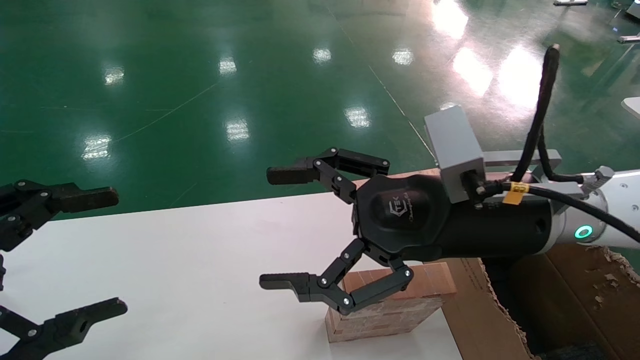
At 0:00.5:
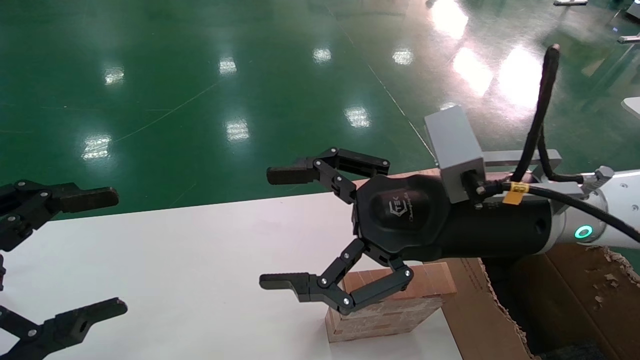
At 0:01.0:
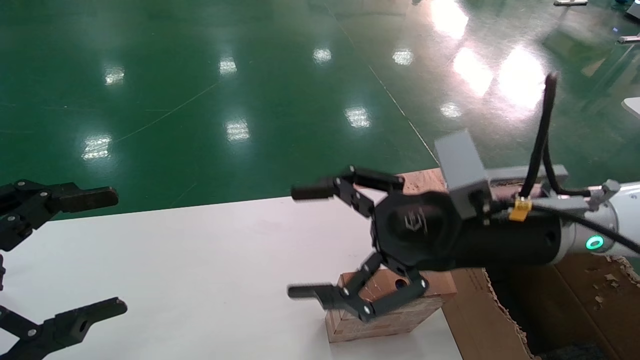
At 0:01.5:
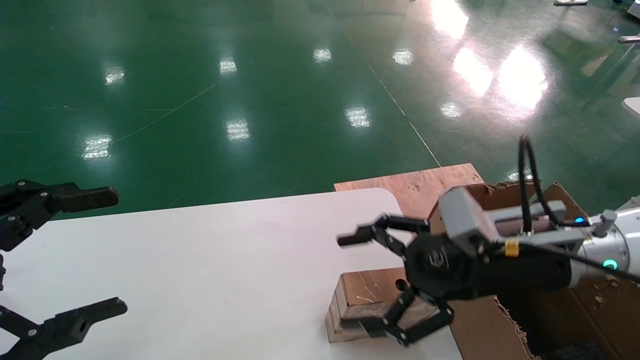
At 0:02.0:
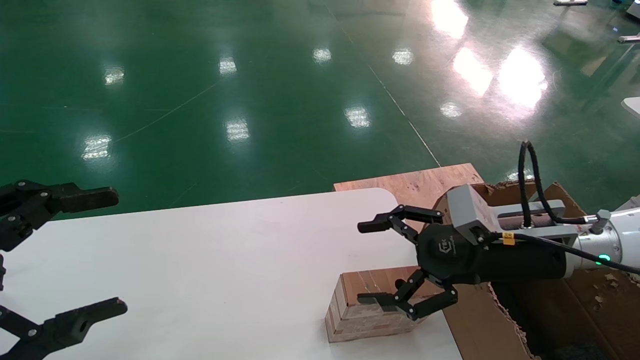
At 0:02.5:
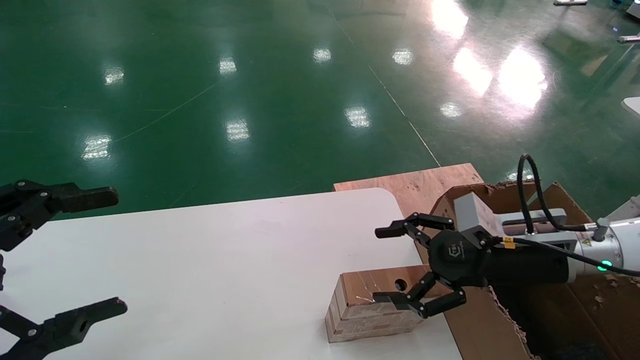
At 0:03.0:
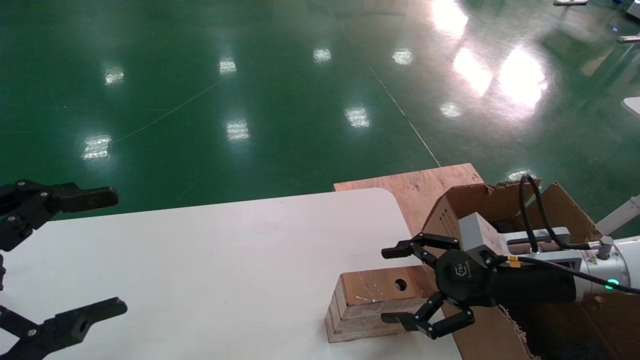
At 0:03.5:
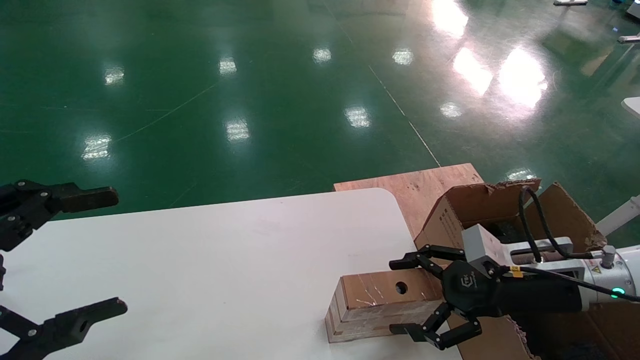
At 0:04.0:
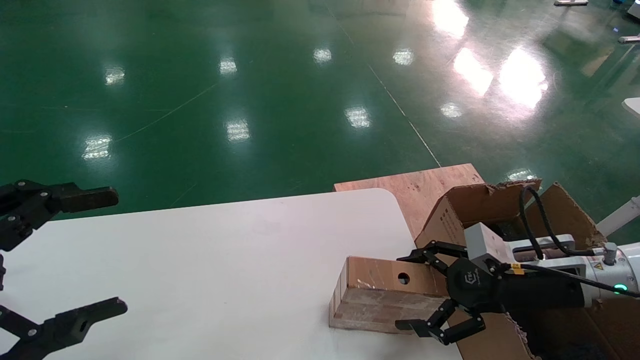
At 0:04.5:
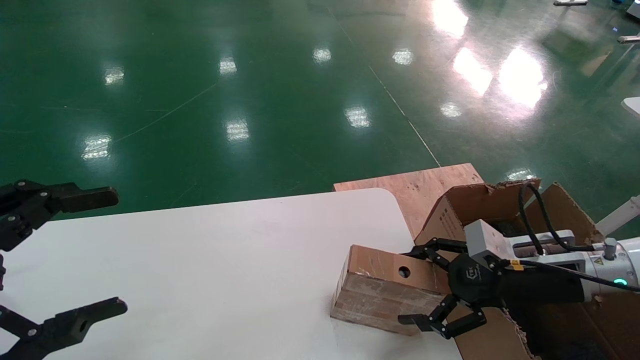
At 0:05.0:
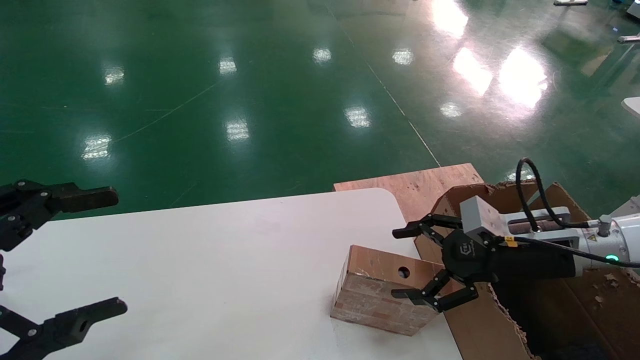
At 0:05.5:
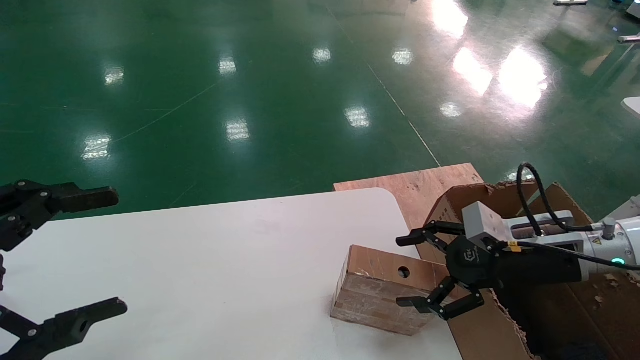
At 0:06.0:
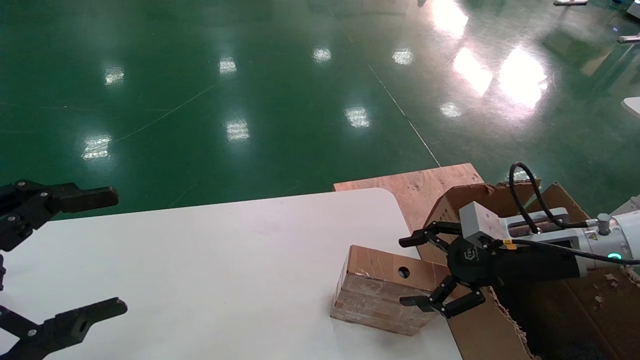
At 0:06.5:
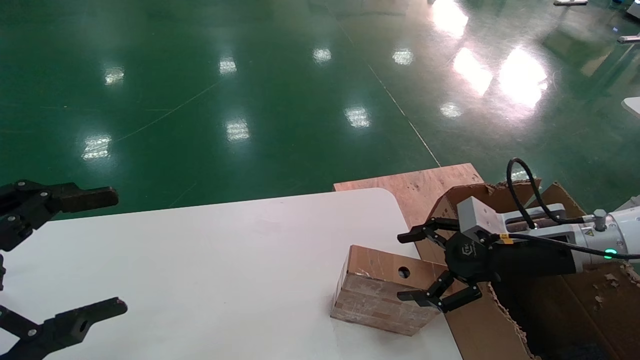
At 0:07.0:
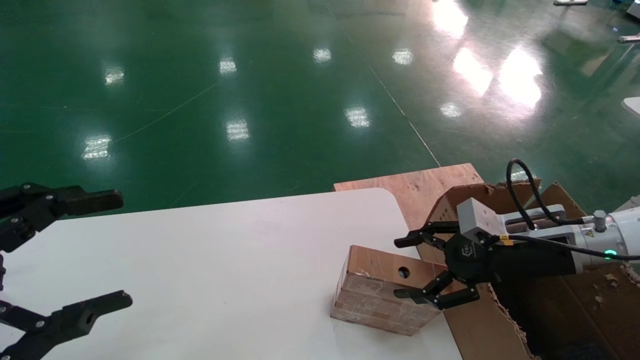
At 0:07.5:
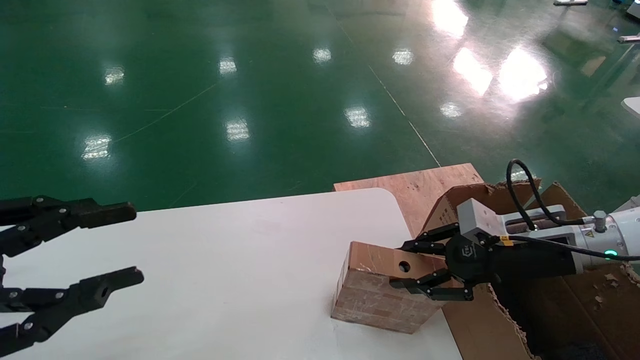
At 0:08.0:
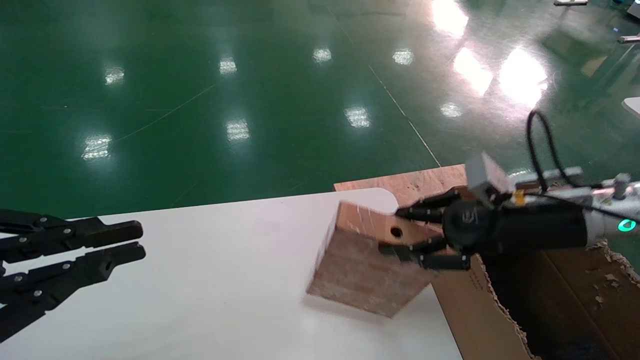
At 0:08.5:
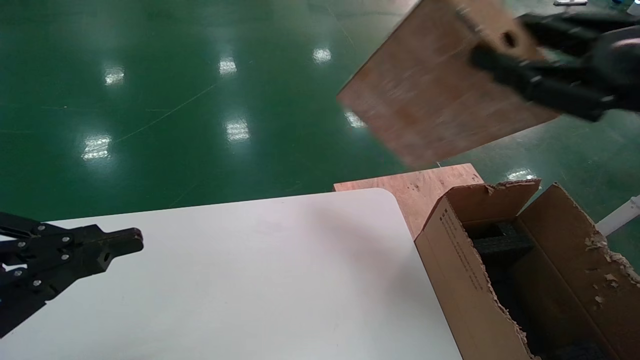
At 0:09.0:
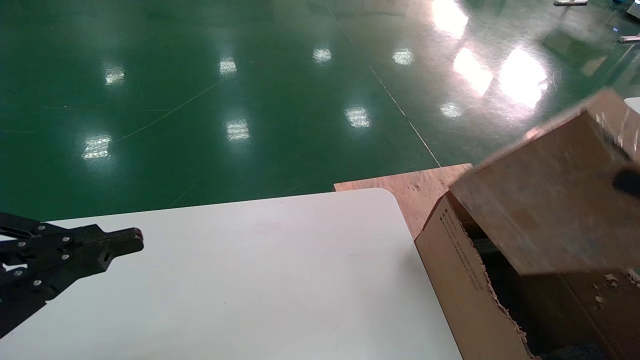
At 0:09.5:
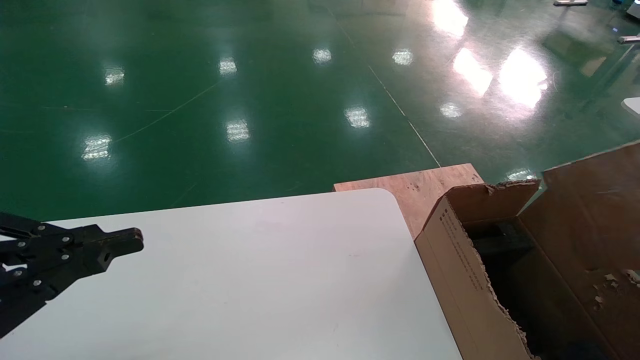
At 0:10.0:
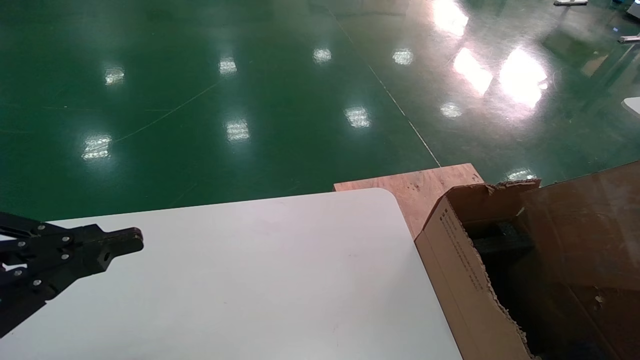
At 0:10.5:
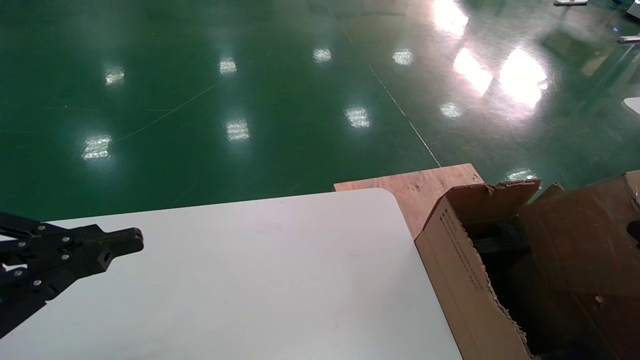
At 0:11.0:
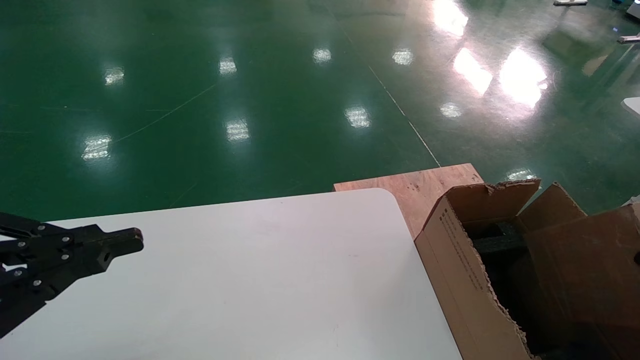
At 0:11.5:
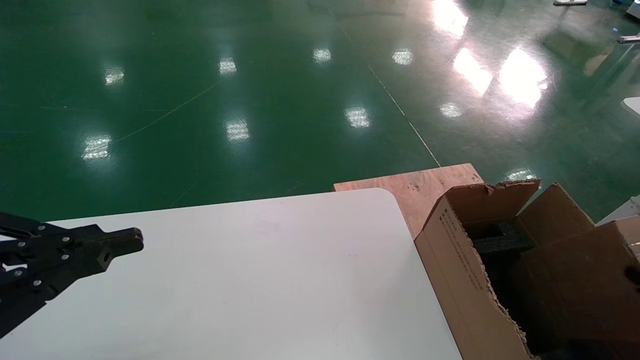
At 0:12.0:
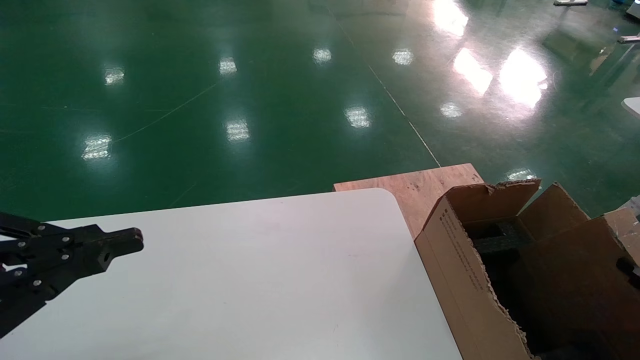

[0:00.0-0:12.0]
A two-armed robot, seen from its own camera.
Task of the whole recording: put the box on the table into the big box.
Step, 0:01.5 to 0:07.5: Pick up the mouse and the power cord paper box.
0:00.0 to 0:02.0: The right gripper moves to the right and downward, about 15 cm.
0:02.0 to 0:04.0: The right gripper moves downward and to the right, about 10 cm.
0:04.0 to 0:06.0: There are only small adjustments of the grippers.
0:06.0 to 0:08.0: The left gripper closes up. The right gripper moves upward, some 5 cm, and closes.
0:08.0 to 0:10.0: The right gripper travels backward, to the right and downward by some 30 cm.
0:10.0 to 0:12.0: The right gripper is displaced downward and to the right by about 10 cm.

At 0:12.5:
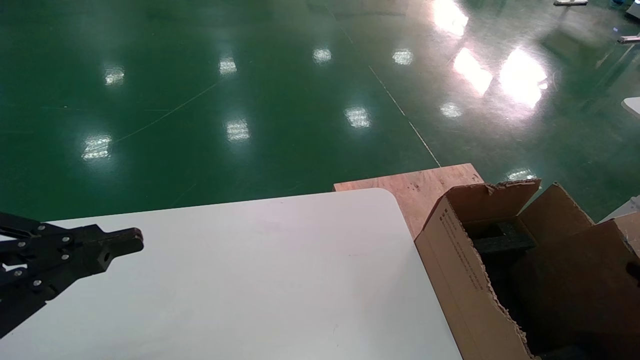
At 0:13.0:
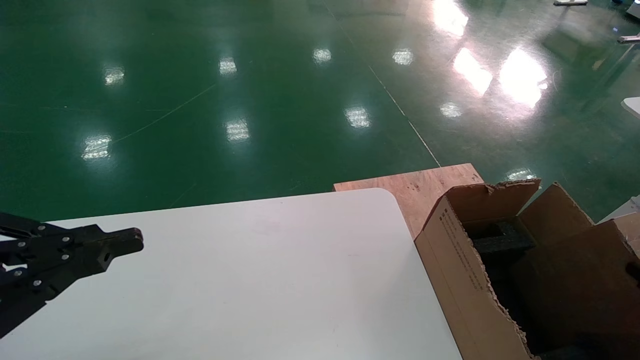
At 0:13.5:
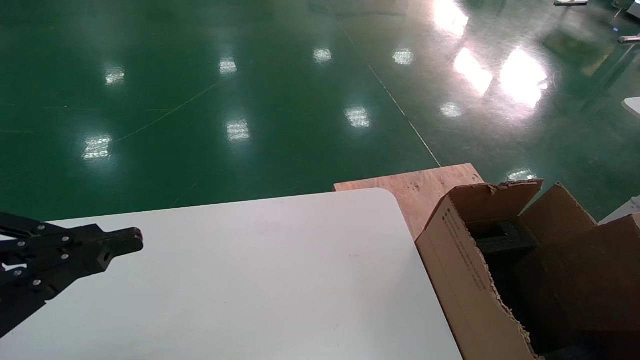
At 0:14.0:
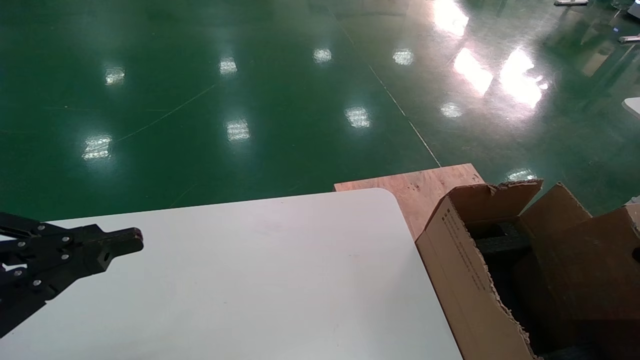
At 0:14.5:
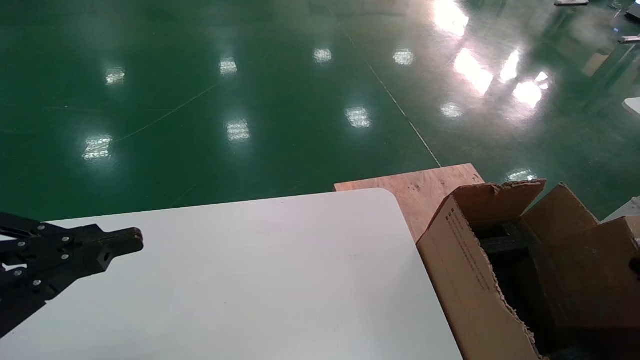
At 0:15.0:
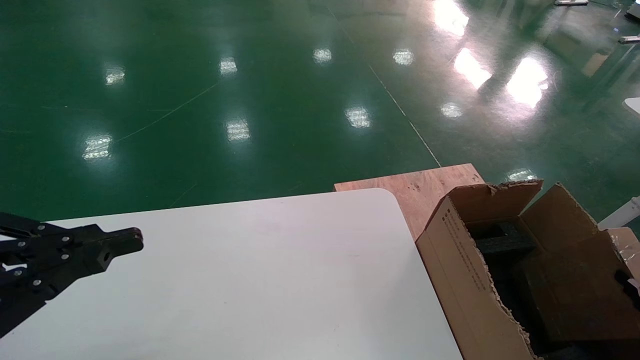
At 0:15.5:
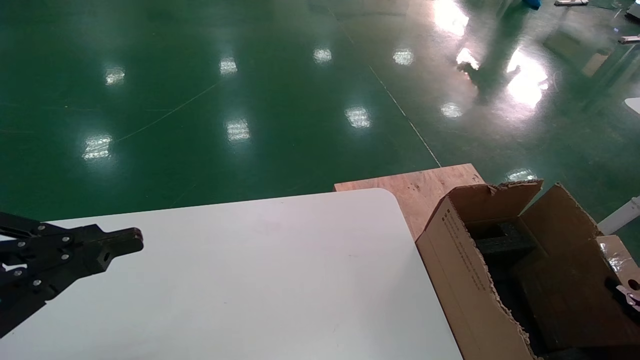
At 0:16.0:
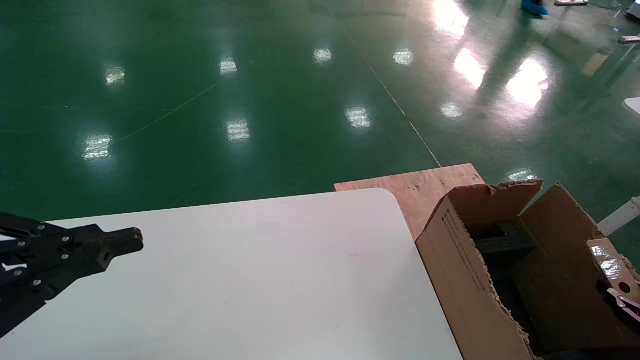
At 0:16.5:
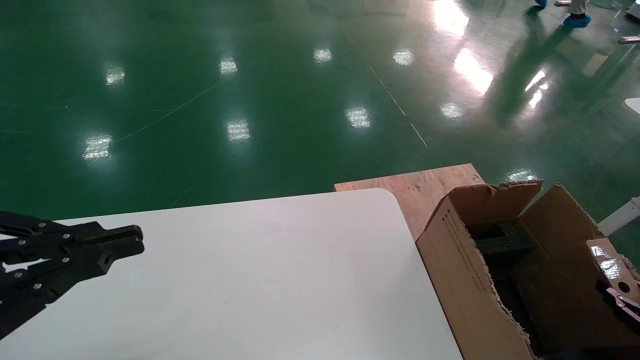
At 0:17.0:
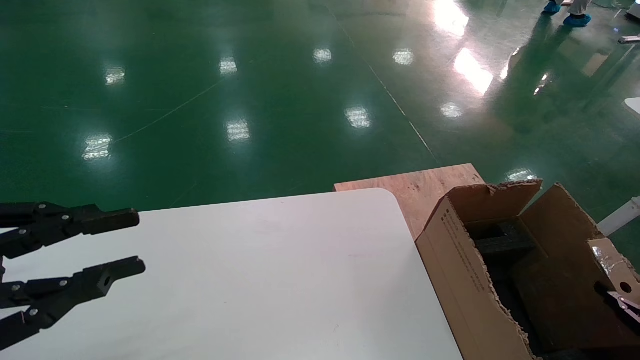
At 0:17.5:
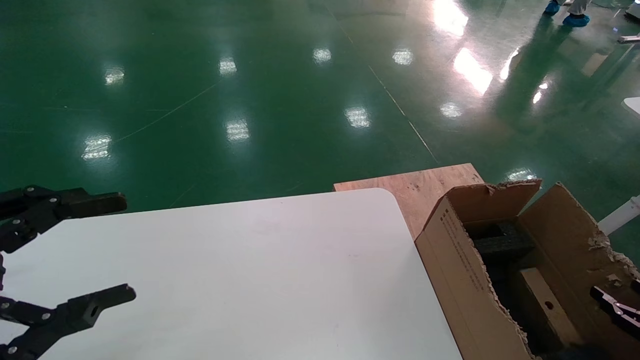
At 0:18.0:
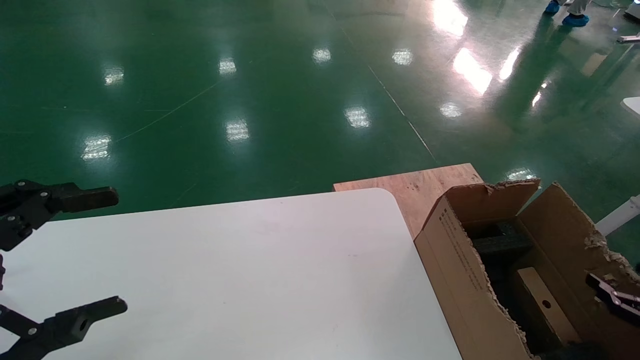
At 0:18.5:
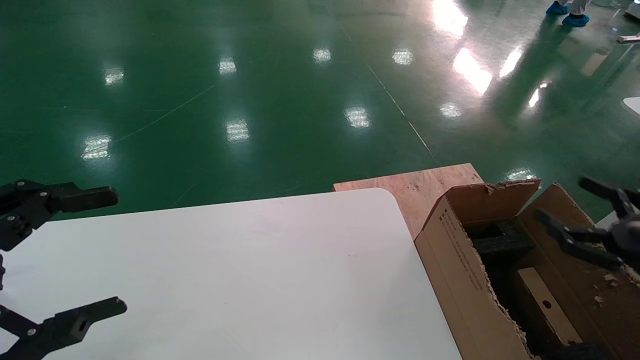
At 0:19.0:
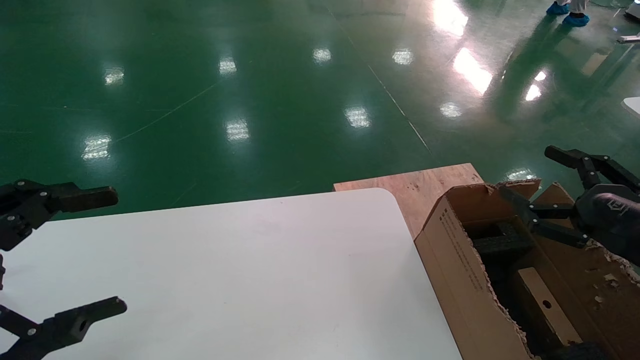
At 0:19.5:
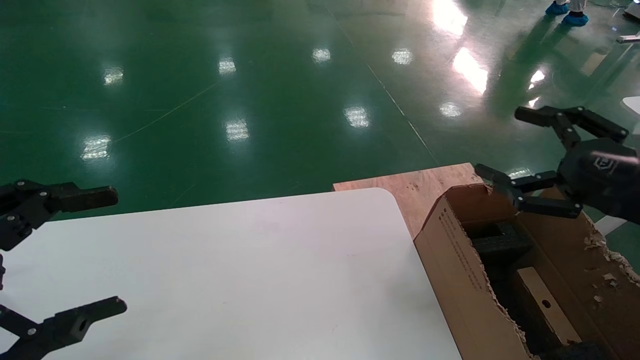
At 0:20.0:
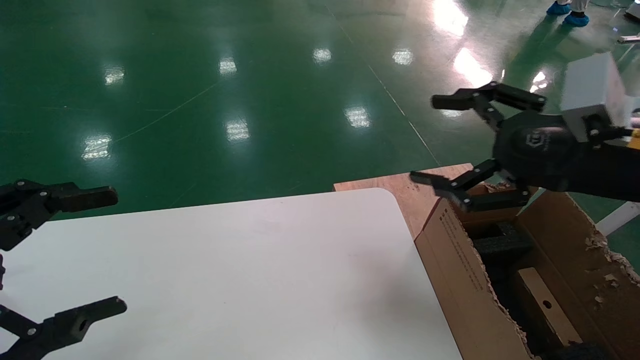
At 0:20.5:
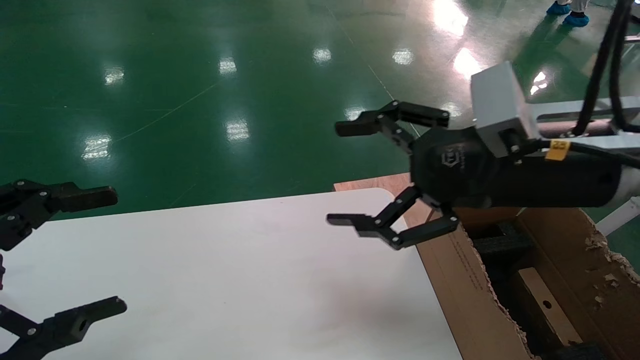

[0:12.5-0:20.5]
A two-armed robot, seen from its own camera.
Task of the whole recording: put the box on the table into the big box.
Step, 0:12.5 to 0:17.0: Place the mouse and the power cord paper box into the container.
0:12.5 to 0:14.5: There are only small adjustments of the grippers.
0:14.5 to 0:16.5: The grippers make only small movements.
0:16.5 to 0:18.5: The right gripper travels upward and to the left by roughly 15 cm, and opens its fingers; the left gripper opens up.
0:18.5 to 0:20.5: The right gripper heads to the left and upward, covering approximately 30 cm.
